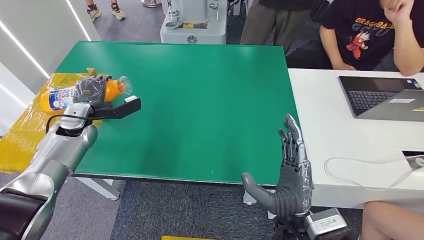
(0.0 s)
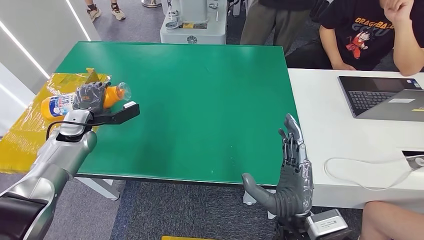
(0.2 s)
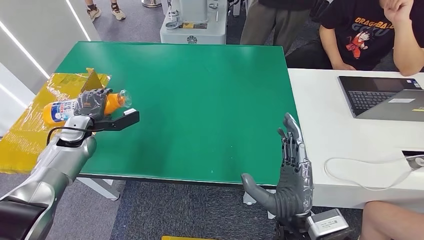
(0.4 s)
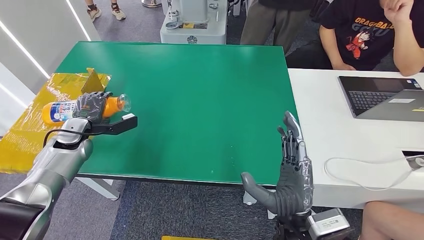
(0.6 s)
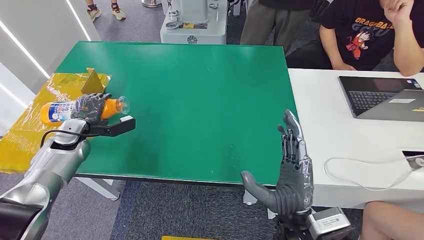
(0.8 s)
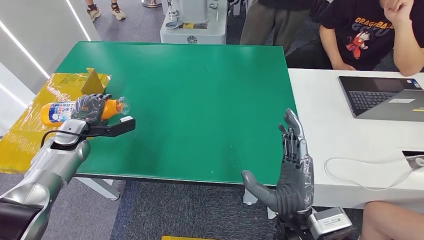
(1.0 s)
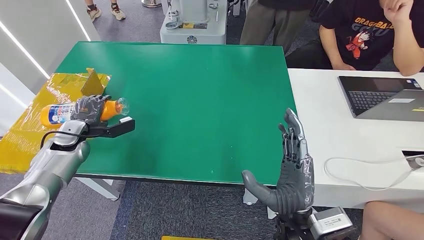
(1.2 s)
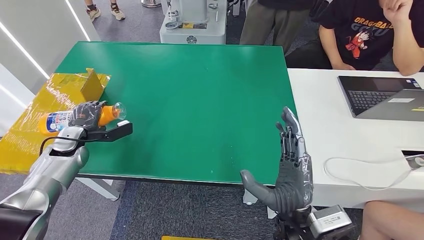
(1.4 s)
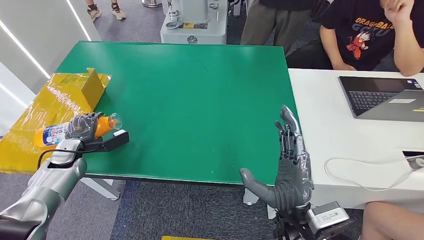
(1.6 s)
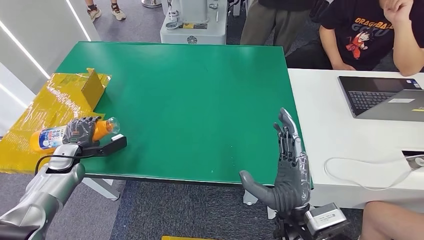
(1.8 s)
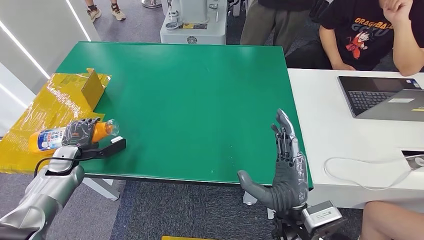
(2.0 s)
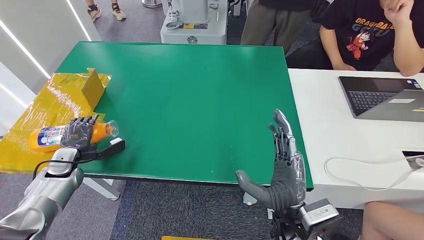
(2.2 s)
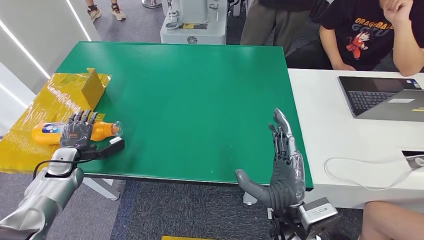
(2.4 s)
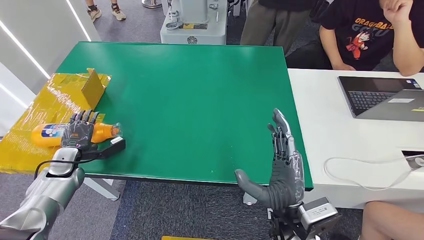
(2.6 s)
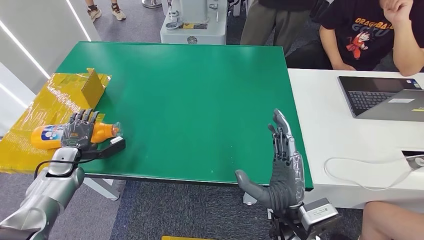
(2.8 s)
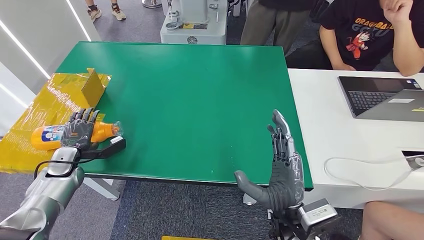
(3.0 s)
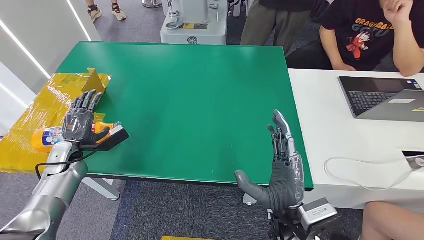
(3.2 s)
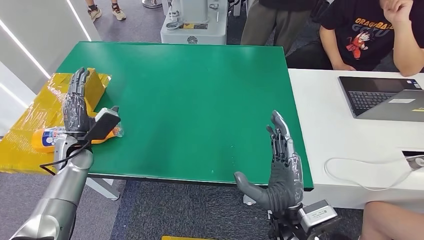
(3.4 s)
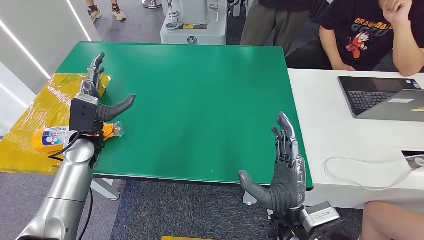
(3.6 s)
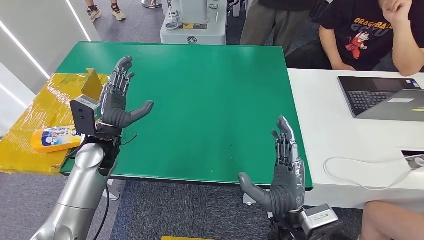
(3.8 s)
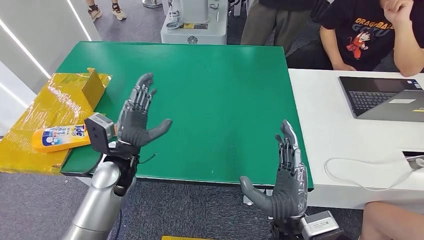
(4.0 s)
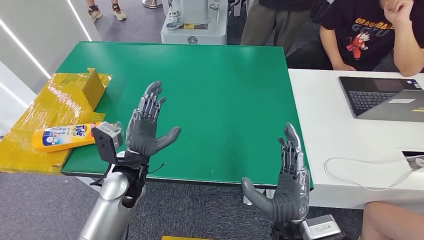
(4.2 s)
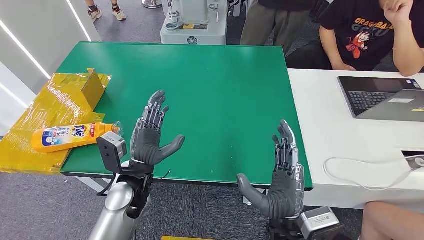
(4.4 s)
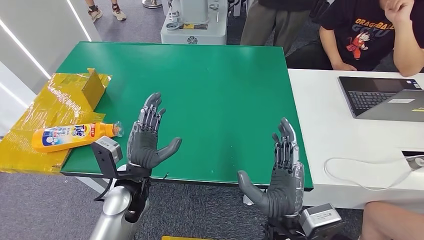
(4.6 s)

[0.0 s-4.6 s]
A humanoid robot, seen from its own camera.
Step, 0.0 to 4.6 s: Turn the bottle to the front side.
0.0 to 1.6 s: The left hand shifts approximately 15 cm downward, backward and to the left.
1.6 to 3.0 s: The hands make only small movements.
3.0 to 4.6 s: The left hand is displaced to the right by roughly 30 cm.

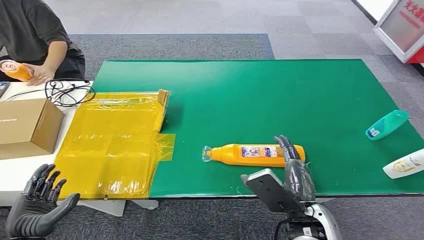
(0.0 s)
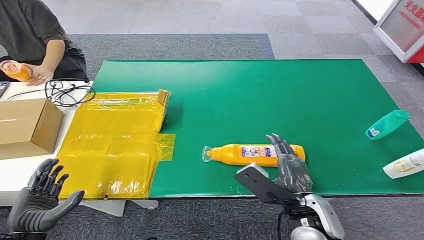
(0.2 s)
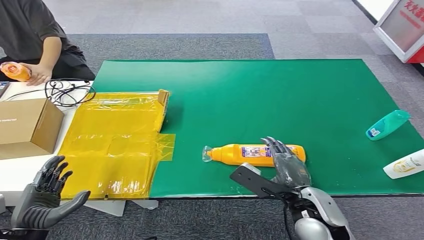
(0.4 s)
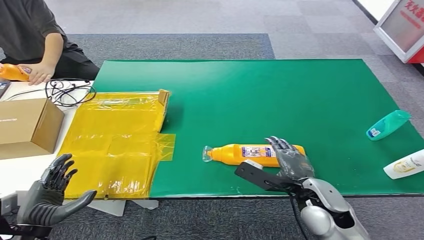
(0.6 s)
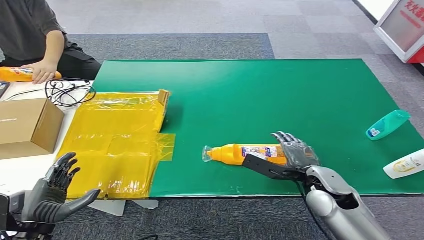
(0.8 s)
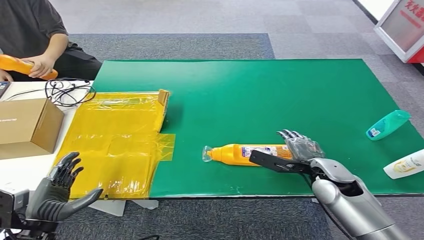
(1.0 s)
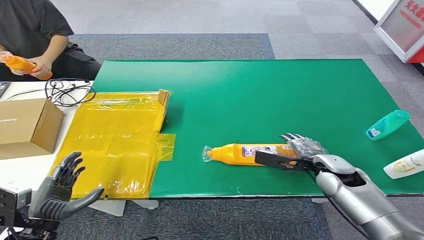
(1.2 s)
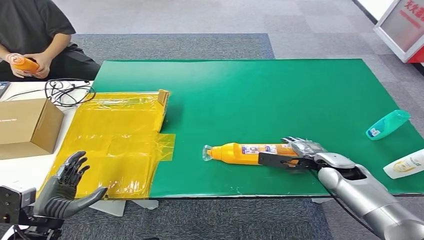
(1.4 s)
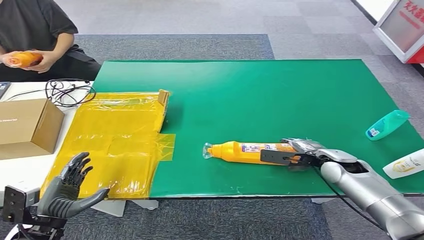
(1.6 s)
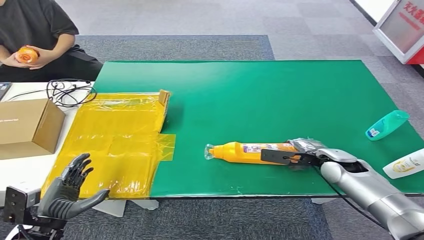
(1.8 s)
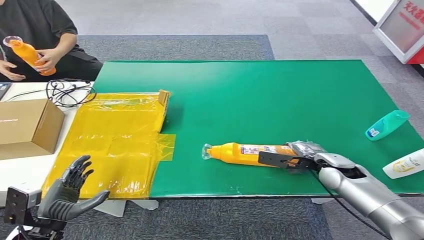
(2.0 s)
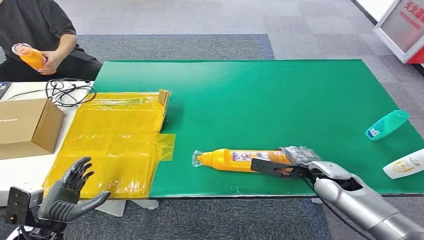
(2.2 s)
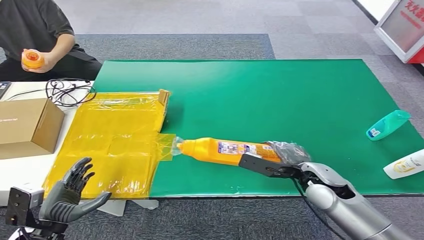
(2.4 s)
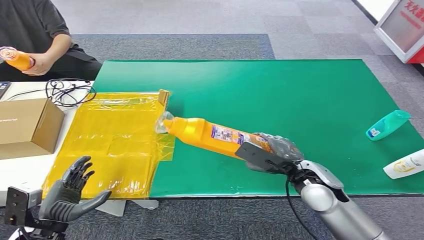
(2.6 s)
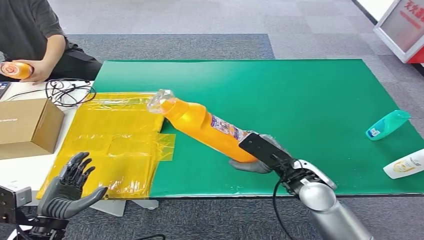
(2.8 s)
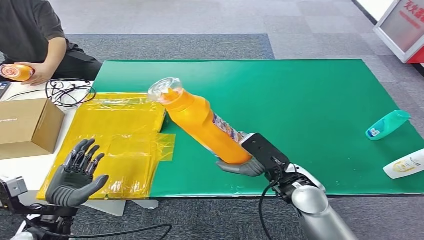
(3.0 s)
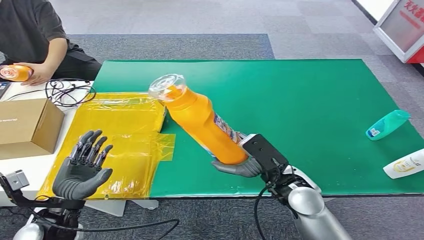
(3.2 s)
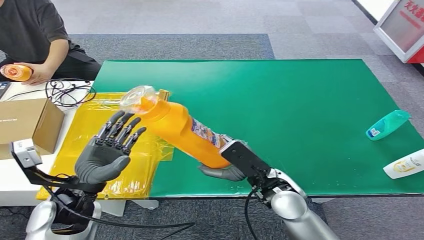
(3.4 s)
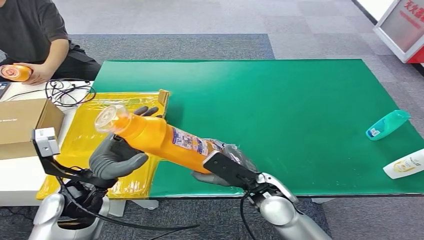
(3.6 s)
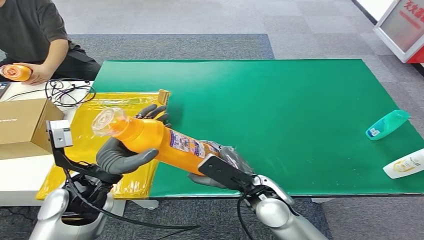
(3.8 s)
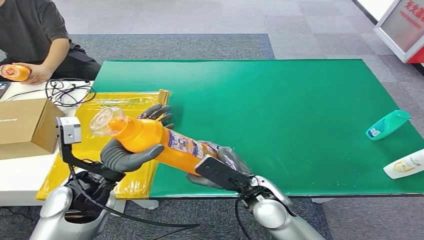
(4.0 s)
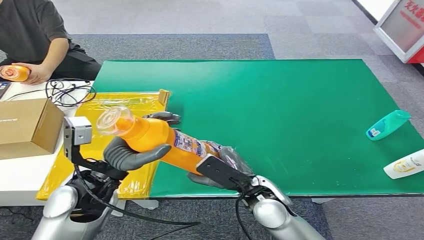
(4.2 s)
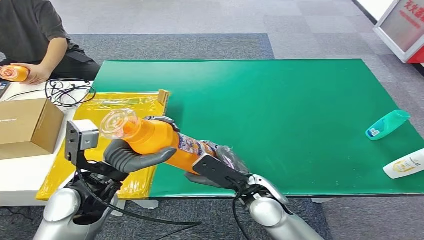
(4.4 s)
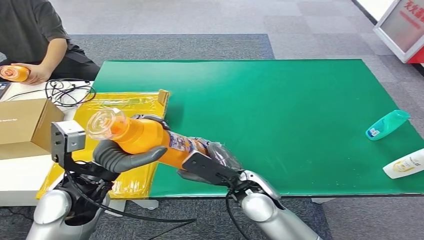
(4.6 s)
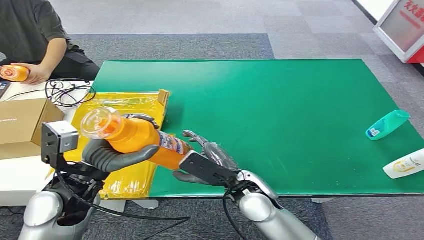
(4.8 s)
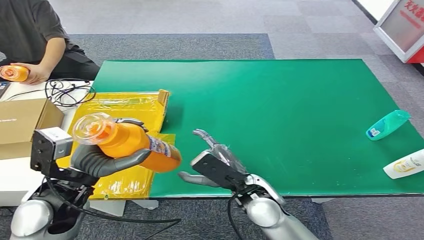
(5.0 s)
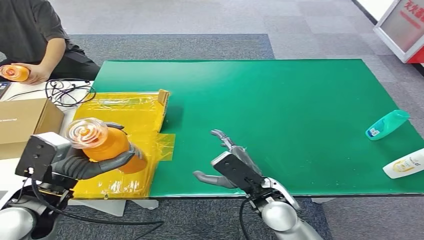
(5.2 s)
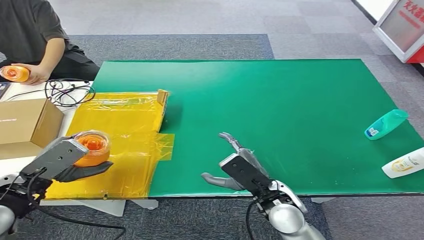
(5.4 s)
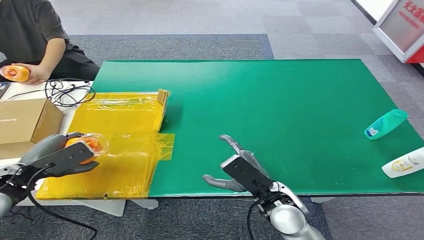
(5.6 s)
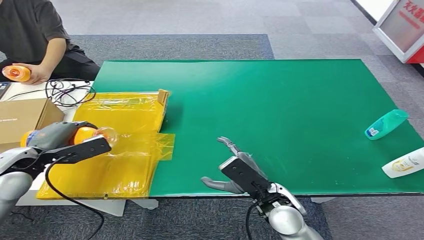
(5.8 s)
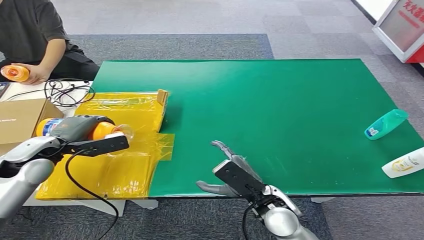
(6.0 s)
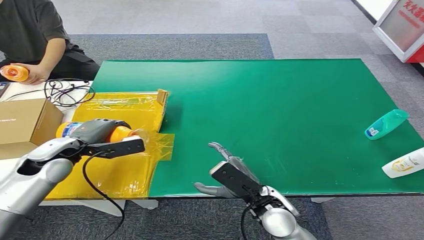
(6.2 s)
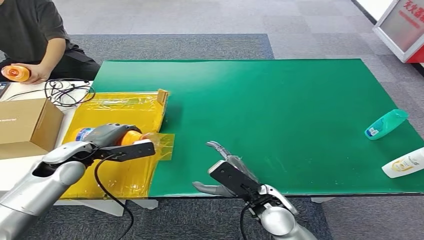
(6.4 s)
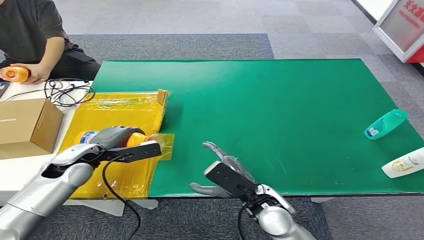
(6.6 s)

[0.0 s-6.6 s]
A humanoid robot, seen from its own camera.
Step, 0.0 to 2.4 s: Pick up the bottle from the table.
Step, 2.6 to 6.6 s: Turn the bottle to the front side.
5.0 to 6.6 s: The left hand shifts about 15 cm forward, to the left and downward.
